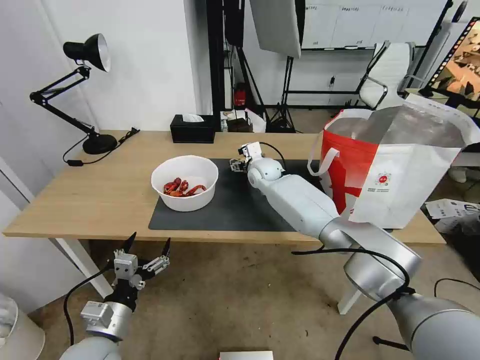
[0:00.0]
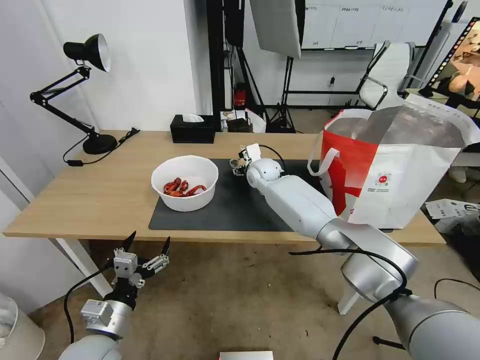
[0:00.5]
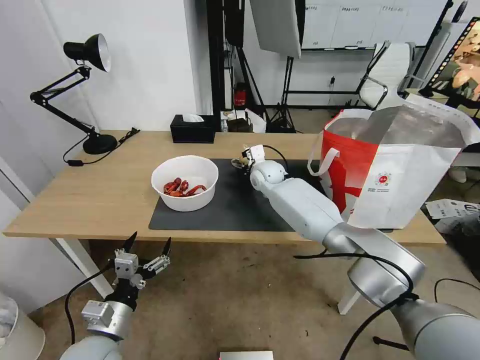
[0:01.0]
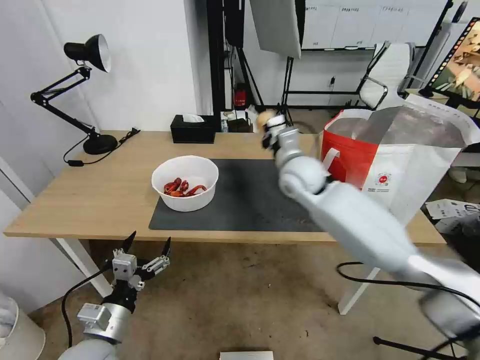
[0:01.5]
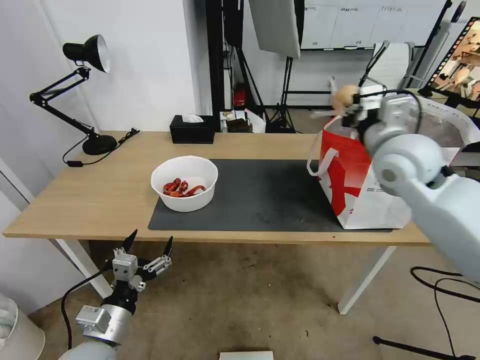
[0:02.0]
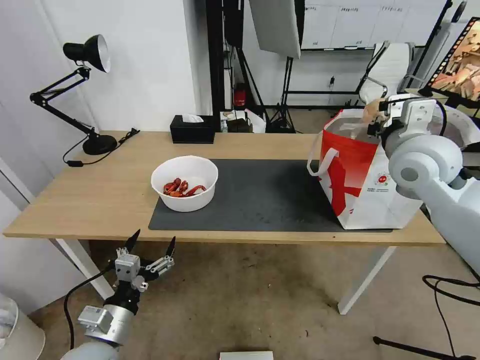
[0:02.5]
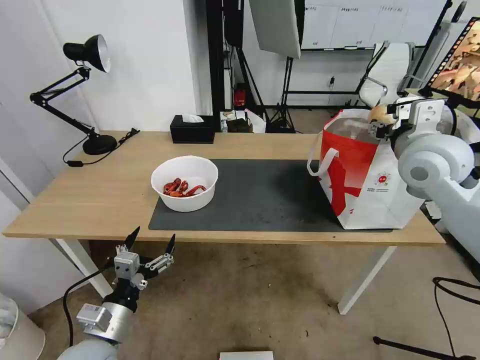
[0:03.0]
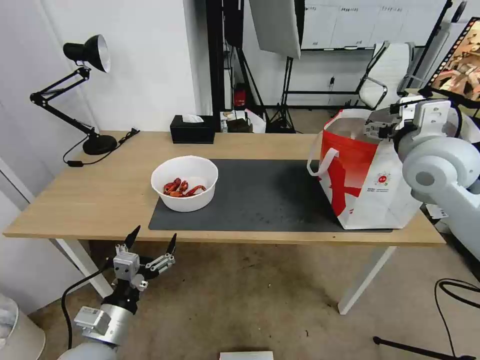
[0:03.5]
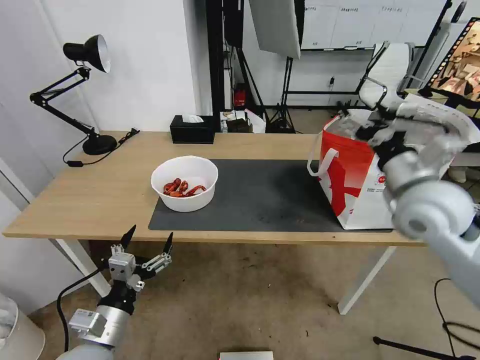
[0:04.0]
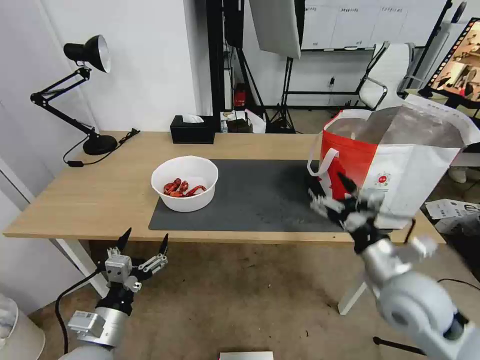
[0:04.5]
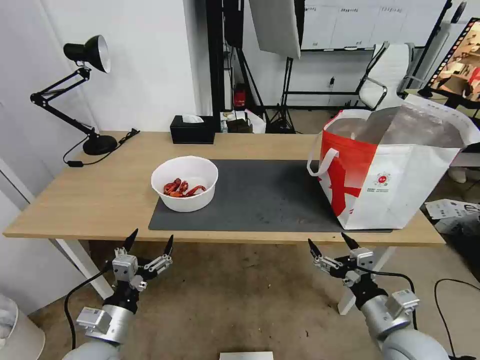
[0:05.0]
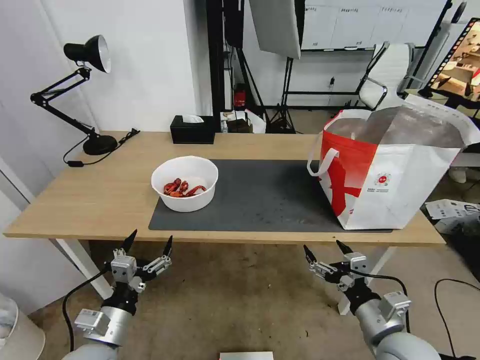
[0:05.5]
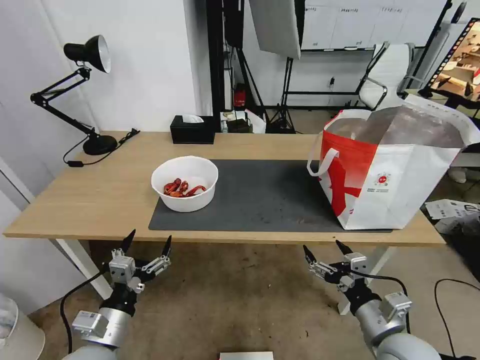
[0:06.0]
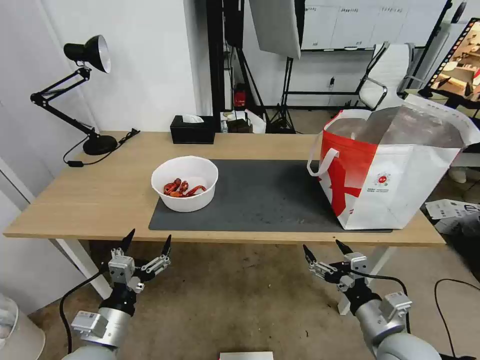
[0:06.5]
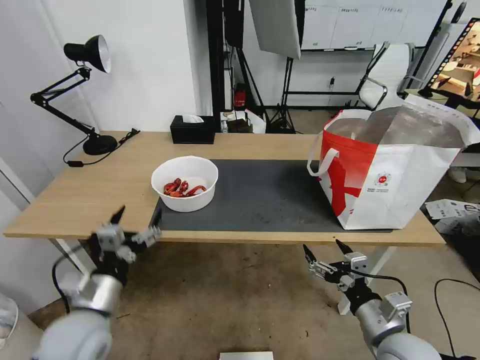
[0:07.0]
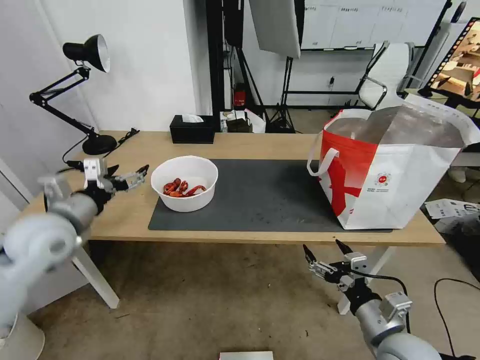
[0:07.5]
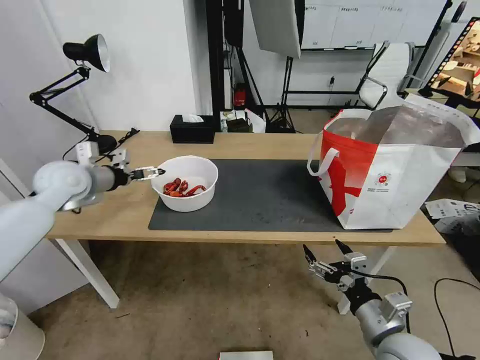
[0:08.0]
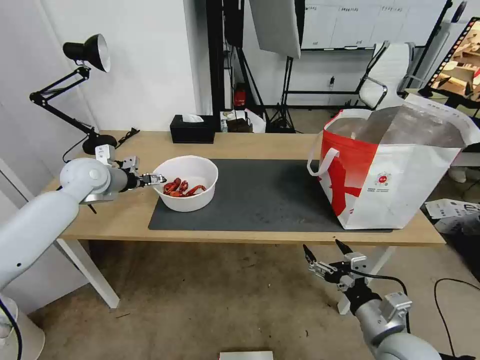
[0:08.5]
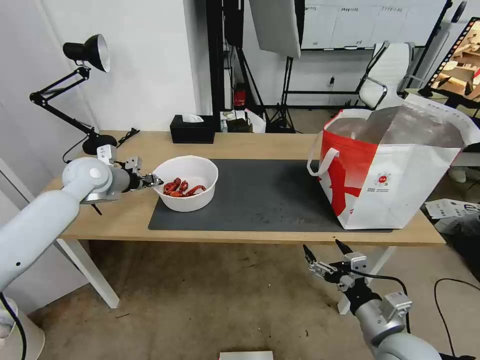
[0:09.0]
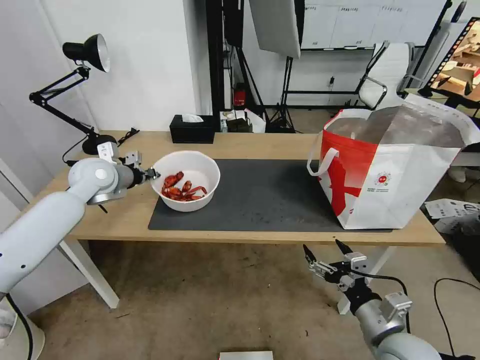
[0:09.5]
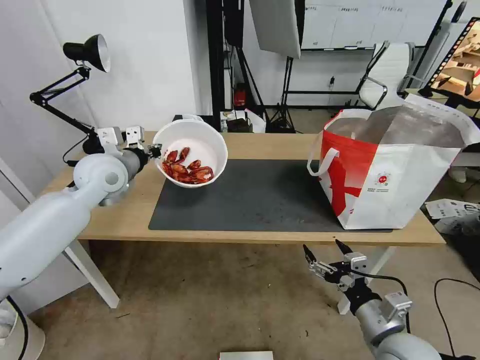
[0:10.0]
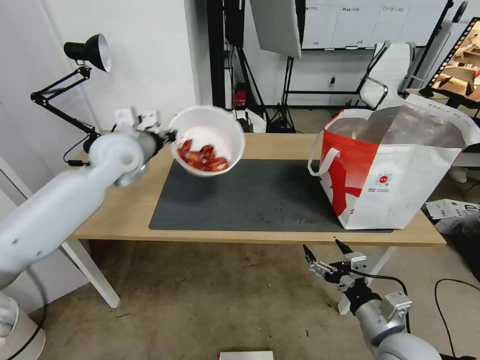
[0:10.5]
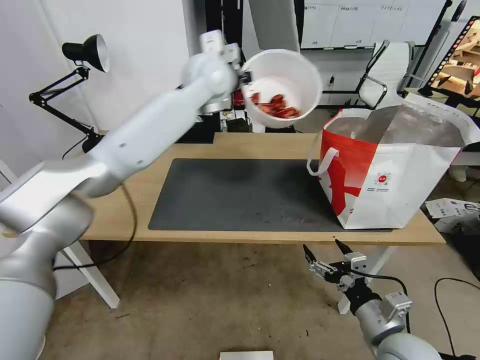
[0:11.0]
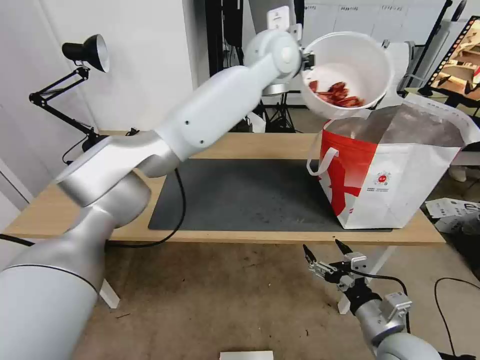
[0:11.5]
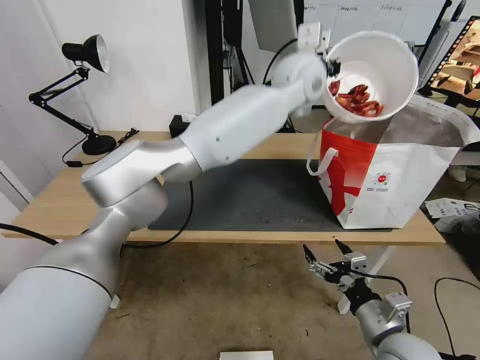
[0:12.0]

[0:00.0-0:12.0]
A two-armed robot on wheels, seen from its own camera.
Task of the whole recording: Pick up the trash from the table and place it into the takeout bag.
0:00.0 to 0:02.0: The right gripper moves to the right, backward and upward, about 35 cm, and closes its fingers.
0:02.0 to 0:04.0: The right gripper shifts some 5 cm backward, and opens.
0:04.0 to 0:06.0: The right gripper goes approximately 30 cm downward and backward.
0:06.0 to 0:08.0: The left gripper heads forward and upward, covering some 35 cm.
0:08.0 to 0:10.0: The left gripper is displaced to the right by roughly 10 cm, and closes its fingers.
0:10.0 to 0:12.0: The left gripper shifts approximately 40 cm to the right.

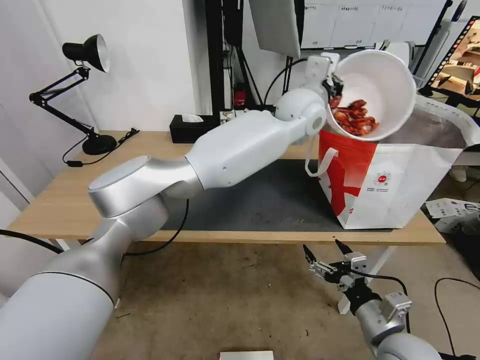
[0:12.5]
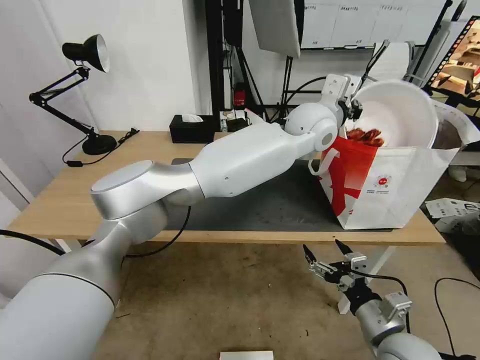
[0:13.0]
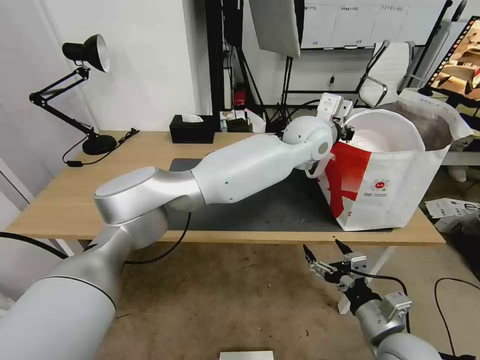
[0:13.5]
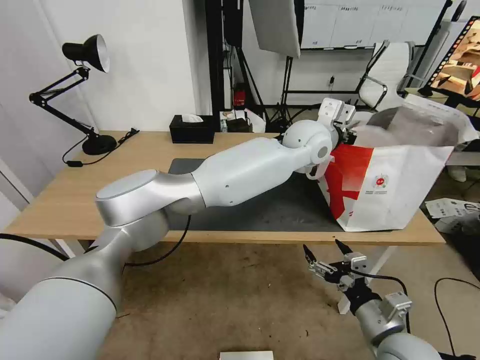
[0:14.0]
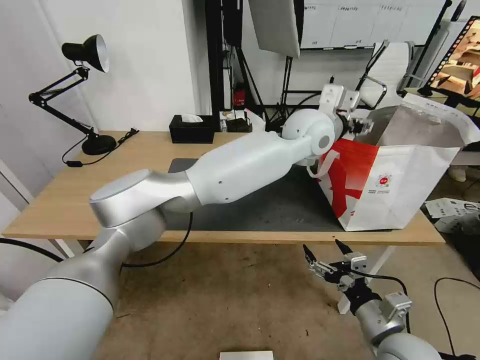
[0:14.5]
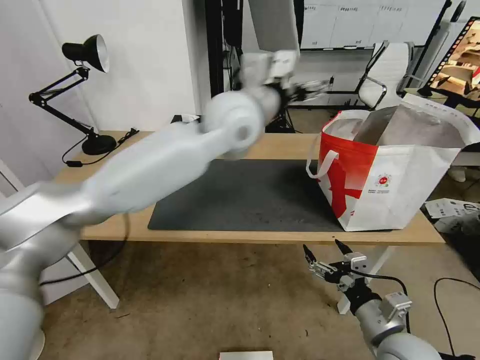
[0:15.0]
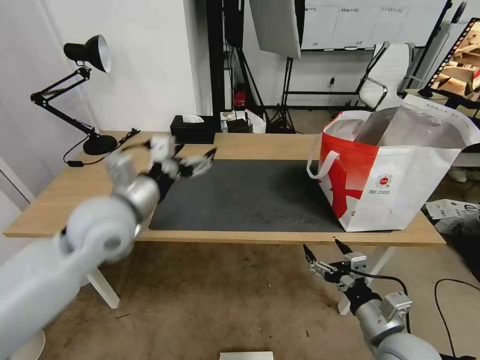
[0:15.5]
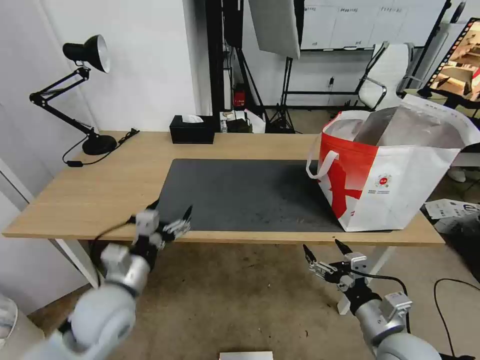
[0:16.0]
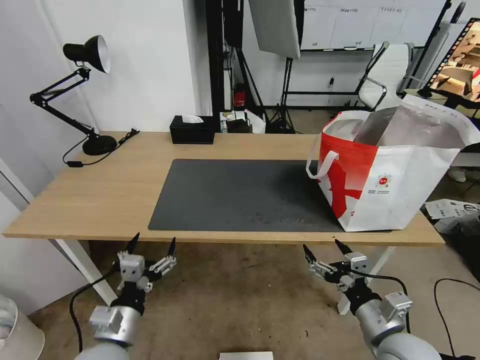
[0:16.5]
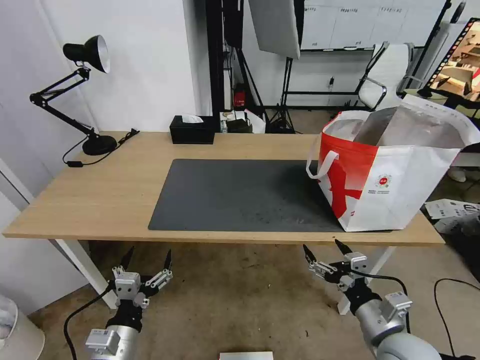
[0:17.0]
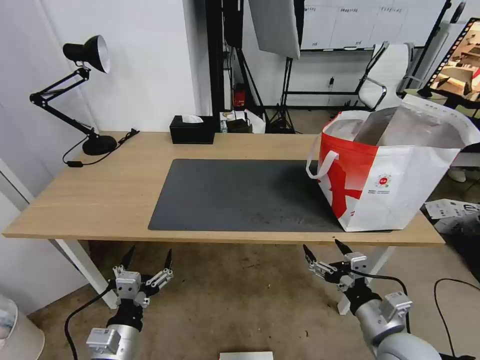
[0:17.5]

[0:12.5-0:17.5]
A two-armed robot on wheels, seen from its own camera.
Task of the whole recording: Pick up the trash from the table and place it into the takeout bag.
0:12.5 to 0:15.0: The left gripper heads to the left and backward, covering about 15 cm, and opens.
0:15.0 to 0:17.5: The left gripper heads downward, backward and to the left, covering about 50 cm.
